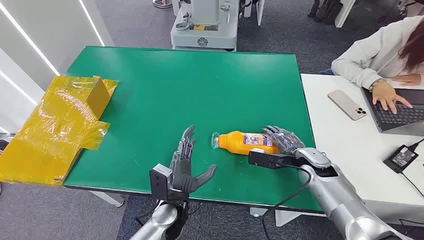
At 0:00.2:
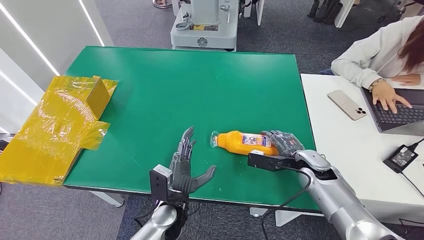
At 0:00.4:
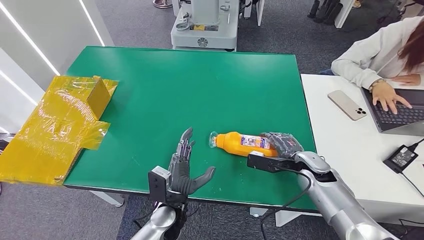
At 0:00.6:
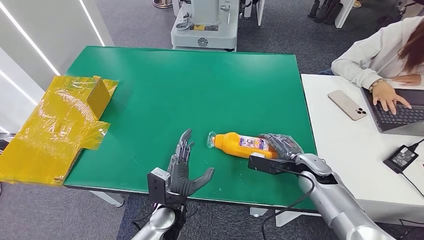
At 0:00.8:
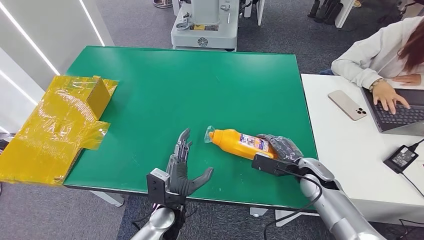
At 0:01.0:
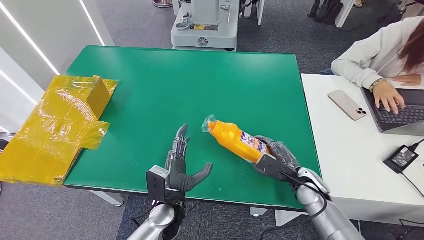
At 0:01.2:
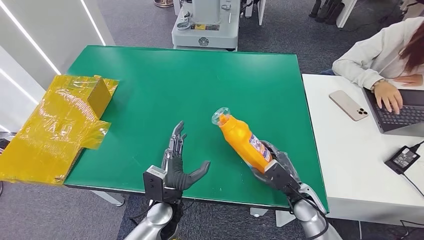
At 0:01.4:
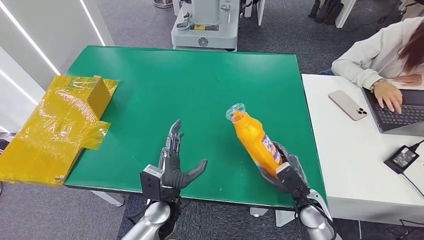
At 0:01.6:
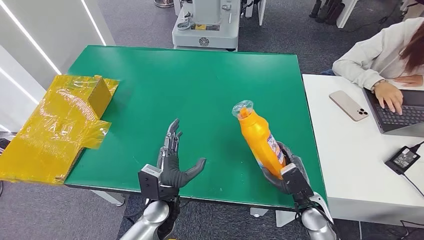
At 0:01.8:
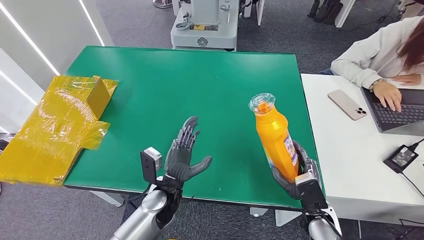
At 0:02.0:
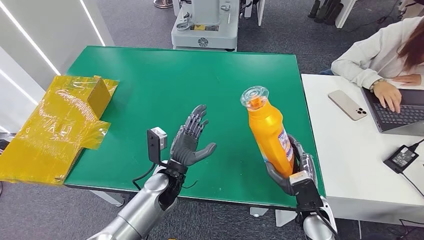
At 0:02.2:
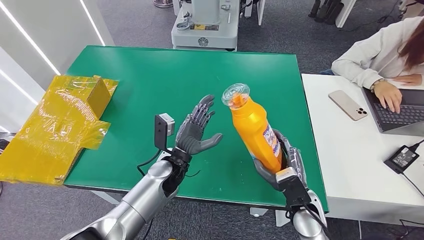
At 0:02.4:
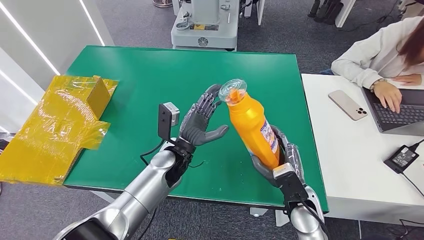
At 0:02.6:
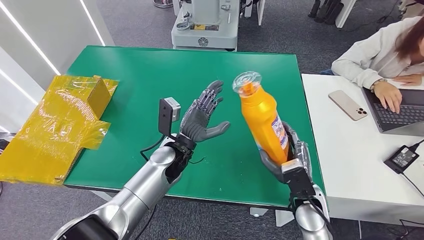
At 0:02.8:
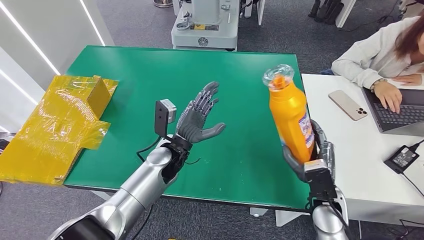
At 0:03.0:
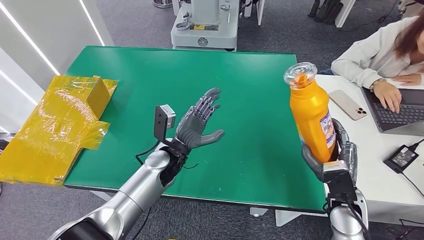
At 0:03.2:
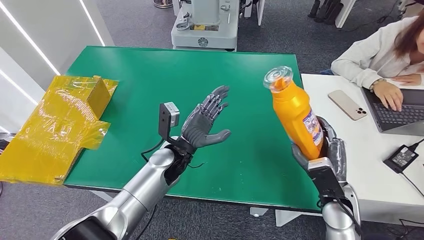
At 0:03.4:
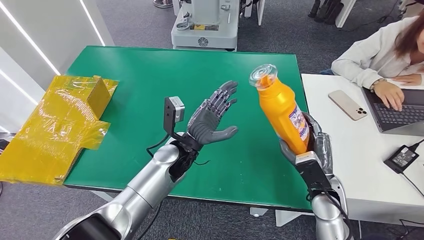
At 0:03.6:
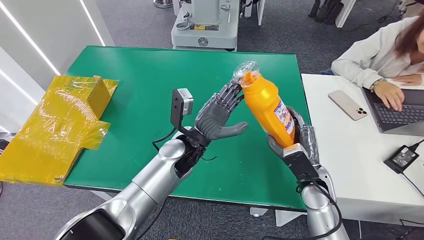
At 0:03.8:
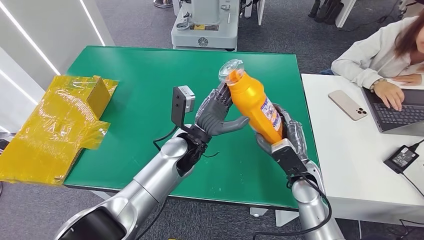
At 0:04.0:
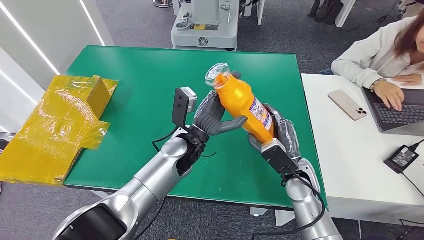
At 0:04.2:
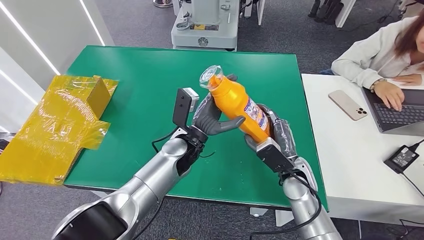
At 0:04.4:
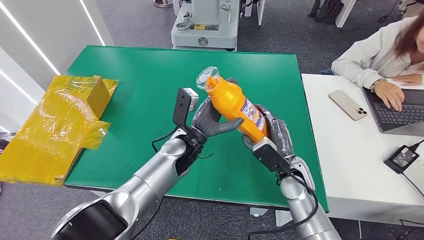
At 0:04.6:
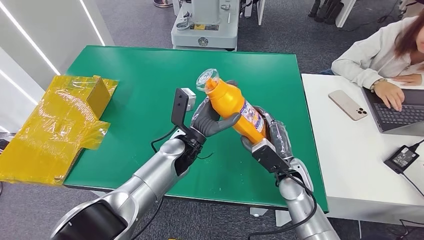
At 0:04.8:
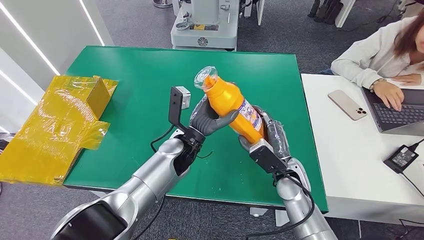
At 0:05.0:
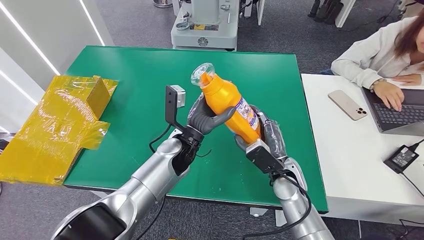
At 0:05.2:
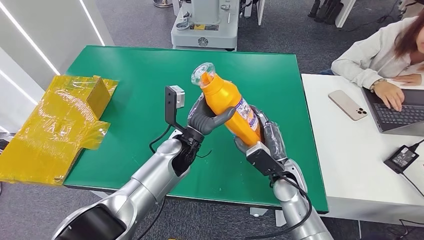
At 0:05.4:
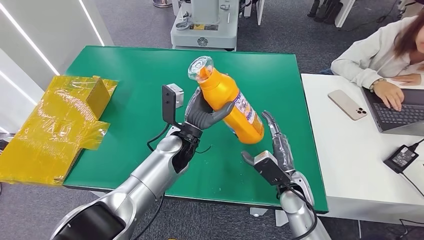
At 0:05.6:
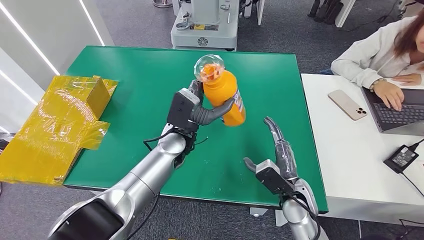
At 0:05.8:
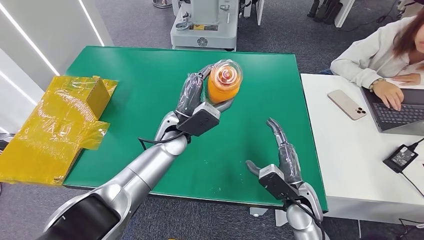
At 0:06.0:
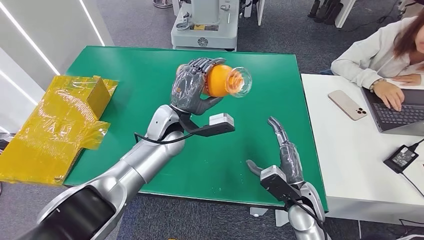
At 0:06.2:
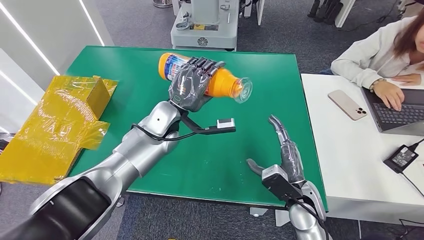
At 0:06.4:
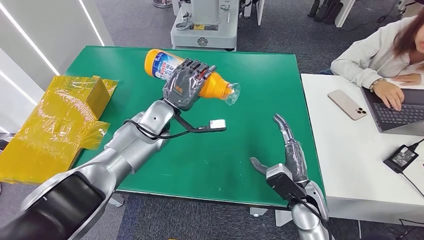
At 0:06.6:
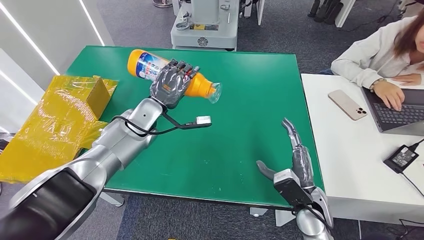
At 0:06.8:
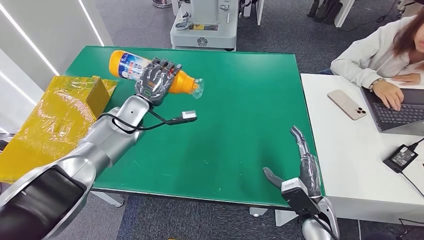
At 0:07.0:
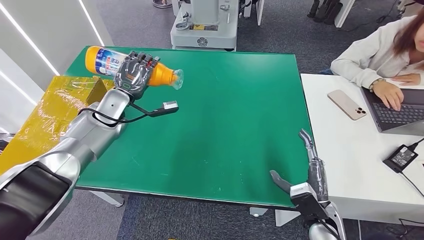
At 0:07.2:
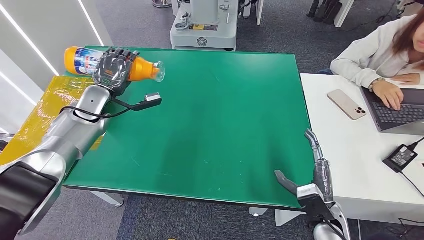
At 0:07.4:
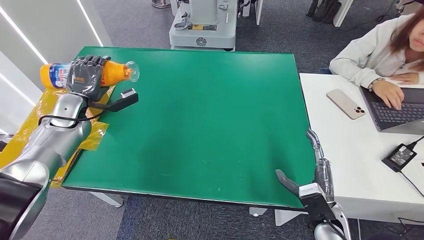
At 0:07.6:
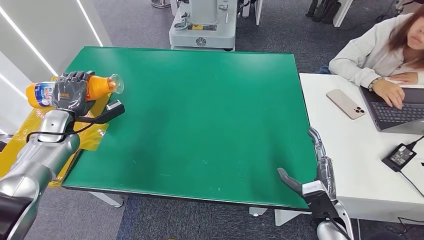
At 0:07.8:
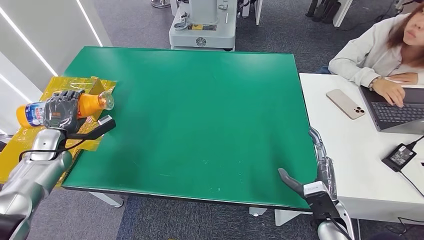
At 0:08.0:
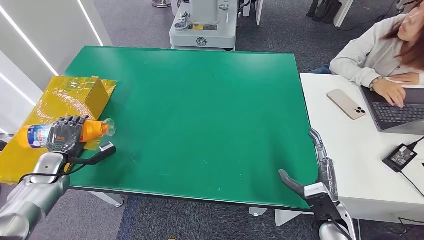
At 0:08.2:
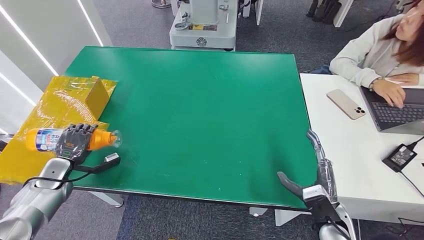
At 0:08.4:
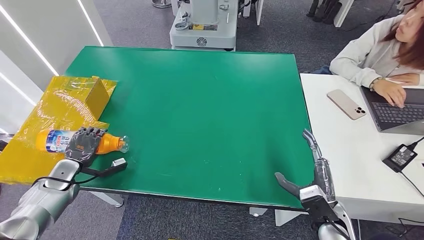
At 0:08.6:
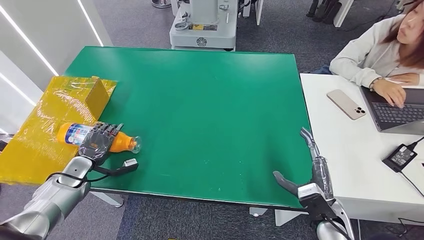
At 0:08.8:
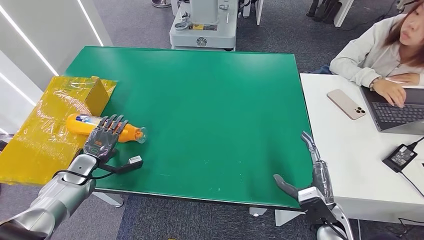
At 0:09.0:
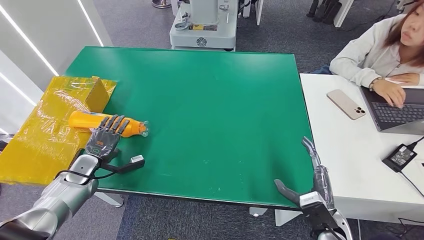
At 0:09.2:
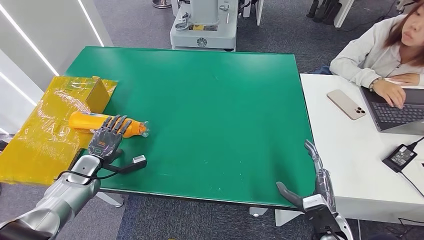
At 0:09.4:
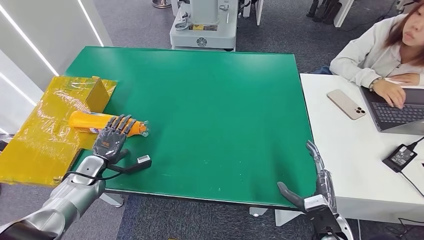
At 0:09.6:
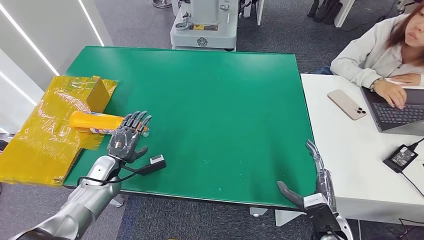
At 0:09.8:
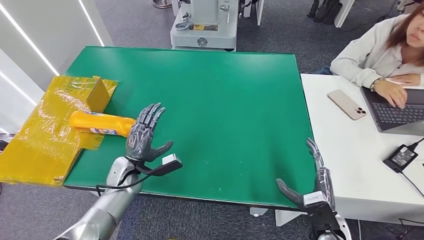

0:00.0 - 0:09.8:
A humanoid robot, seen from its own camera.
Step, 0:00.0 - 0:01.2: Pick up the bottle from the table.
Step, 0:01.4 - 0:09.8: Turn the bottle to the front side.
0:01.4 - 0:02.8: The right hand travels upward by some 10 cm. The left hand heads forward and upward, covering roughly 15 cm.
0:02.8 - 0:04.2: The left hand ends up approximately 5 cm from where it was. The right hand goes approximately 5 cm forward.
0:04.2 - 0:05.6: The right hand ends up about 5 cm from where it was.
0:07.0 - 0:08.4: The left hand shifts roughly 30 cm to the left, downward and backward.
0:08.4 - 0:09.8: The left hand heads to the right, covering some 20 cm.
